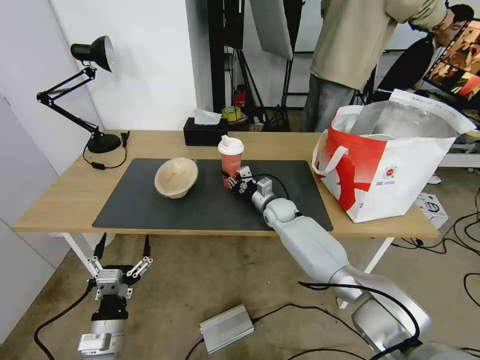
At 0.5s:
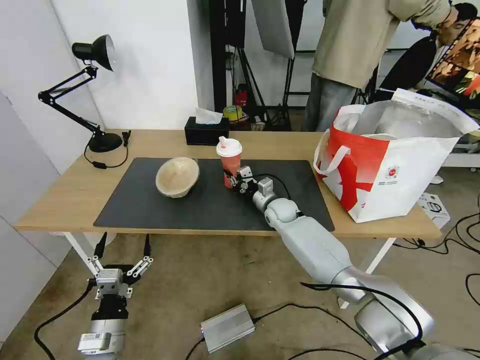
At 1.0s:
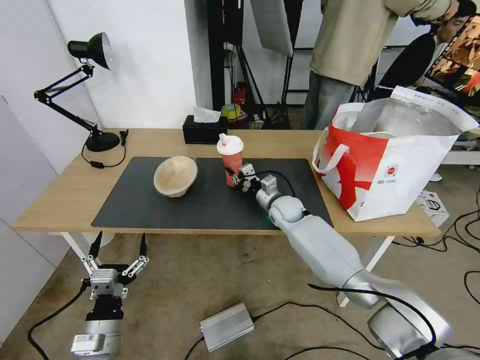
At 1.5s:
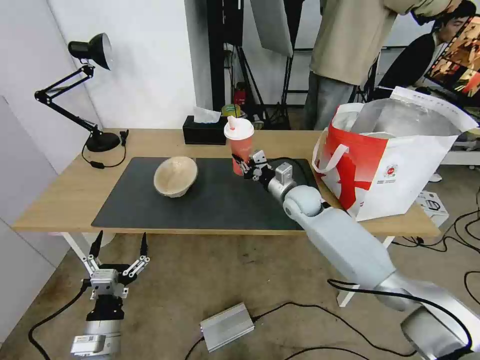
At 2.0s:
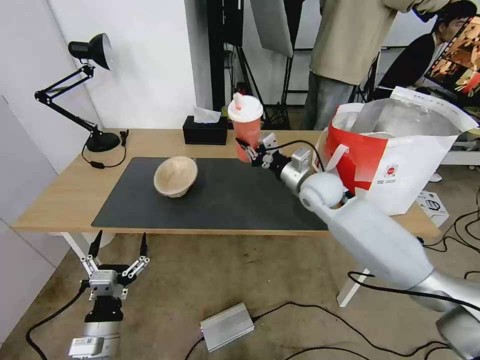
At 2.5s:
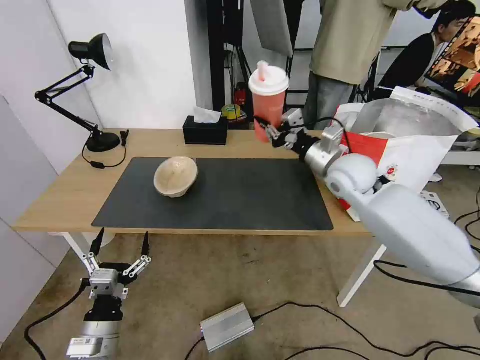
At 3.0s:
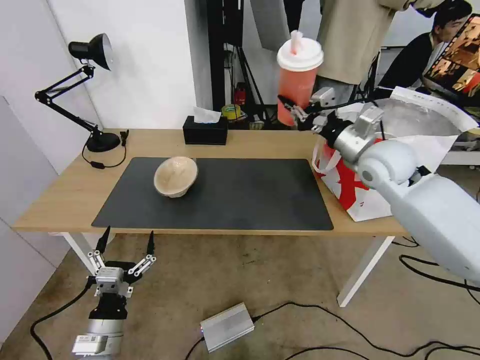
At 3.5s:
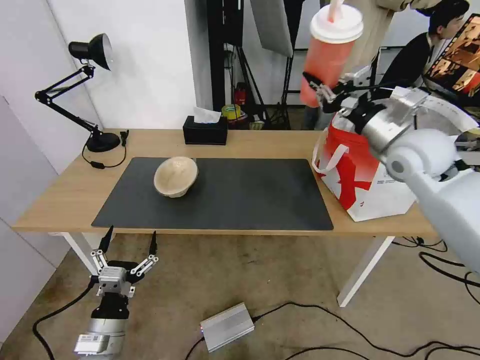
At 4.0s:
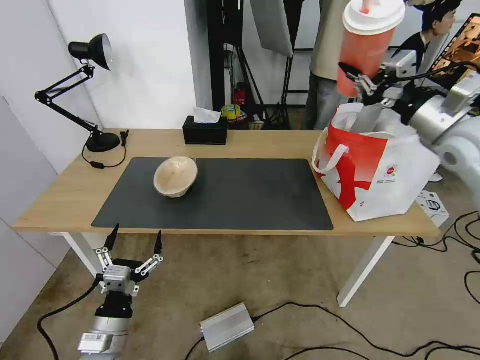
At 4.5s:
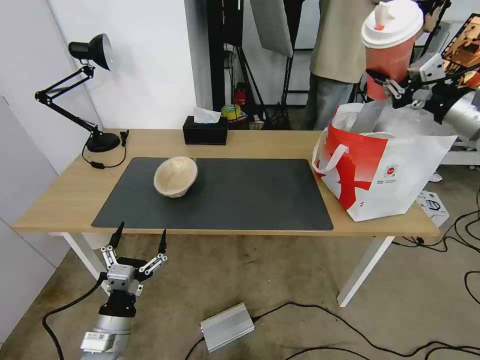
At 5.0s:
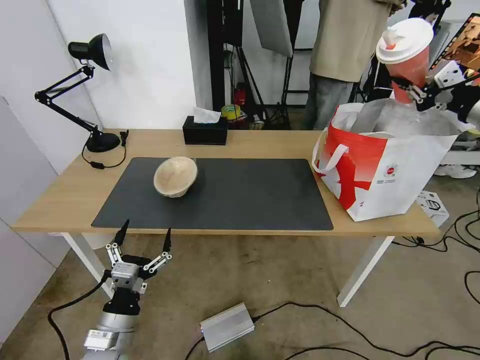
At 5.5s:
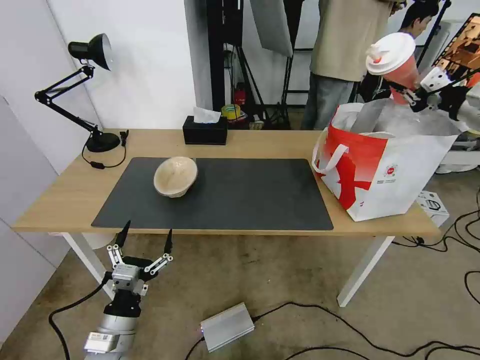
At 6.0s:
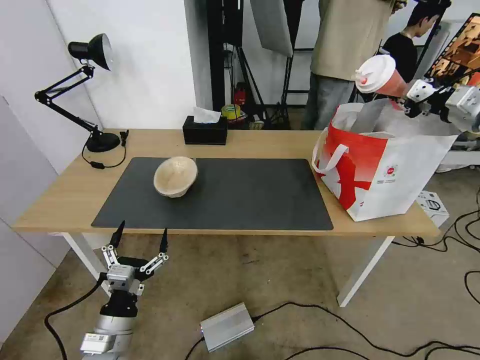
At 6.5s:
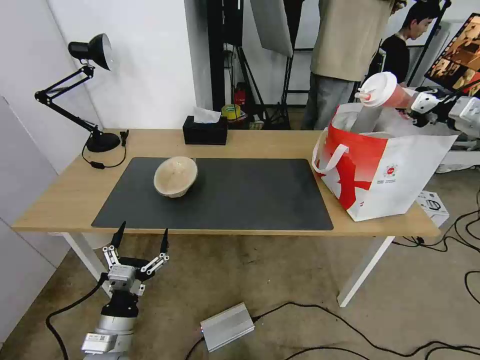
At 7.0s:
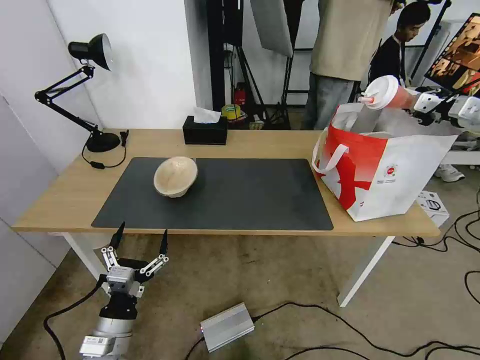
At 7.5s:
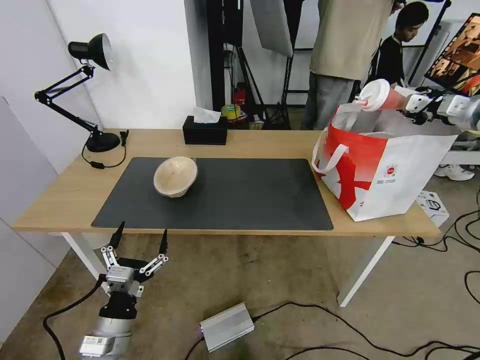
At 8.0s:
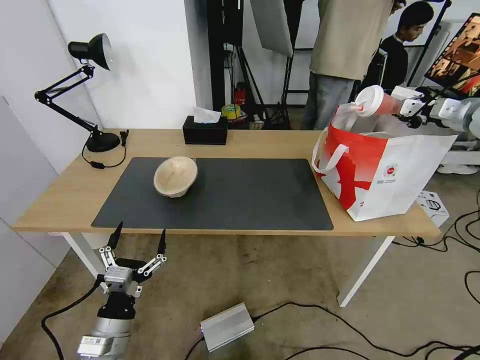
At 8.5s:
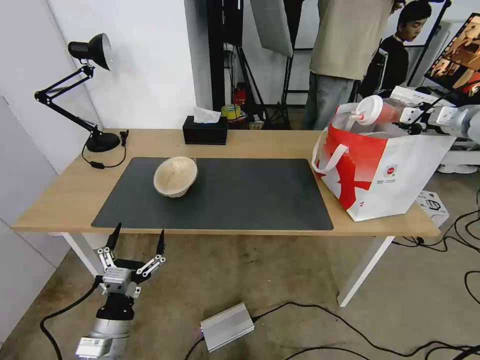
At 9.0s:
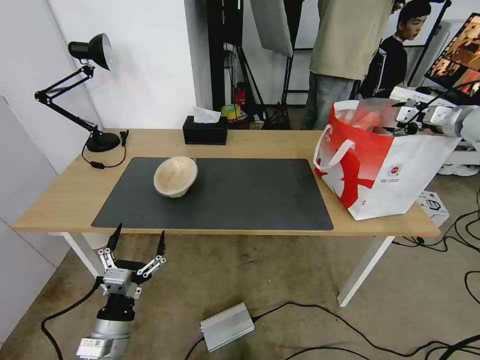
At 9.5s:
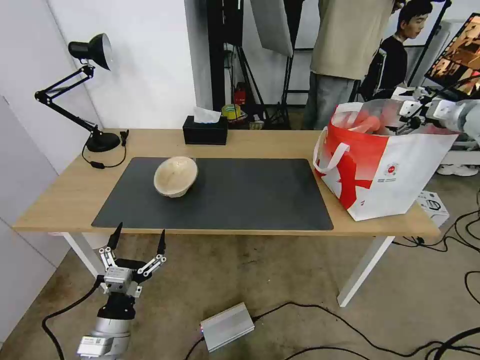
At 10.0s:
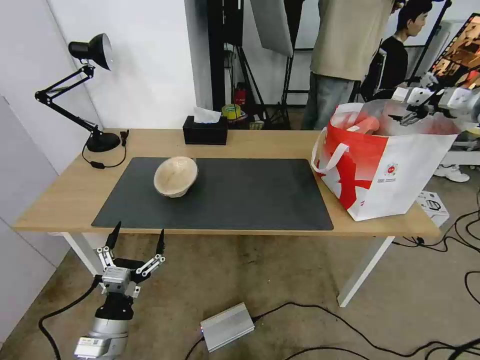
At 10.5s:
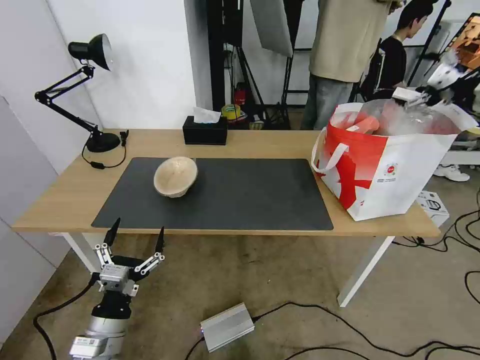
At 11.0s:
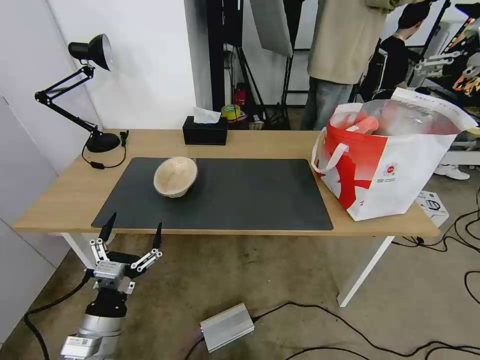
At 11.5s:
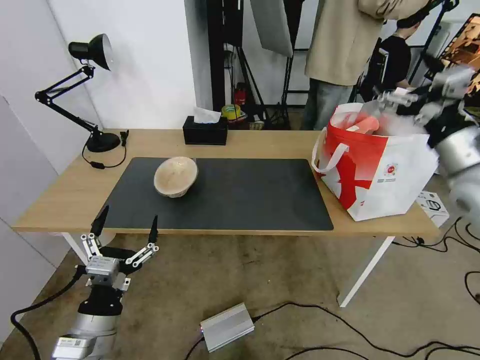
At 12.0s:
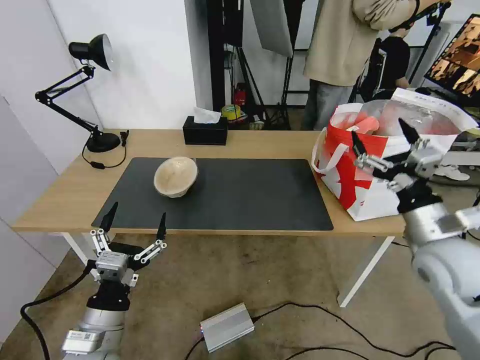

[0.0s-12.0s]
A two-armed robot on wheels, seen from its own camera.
Task of the whole recording: Pick up the trash from the table and place it into the takeout bag.
0.0s to 2.0s: The right gripper moves upward and to the right, about 15 cm.
2.0s to 4.0s: The right gripper heads to the right and upward, covering approximately 25 cm.
4.0s to 6.0s: The right gripper shifts approximately 15 cm to the right and forward.
6.0s to 8.0s: The right gripper shifts about 5 cm forward.
8.0s to 10.0s: The right gripper opens.
10.0s to 12.0s: The right gripper travels backward, to the left and downward by about 35 cm, while the left gripper heads upward, covering some 5 cm.

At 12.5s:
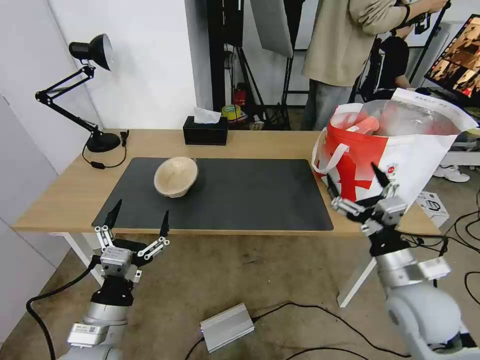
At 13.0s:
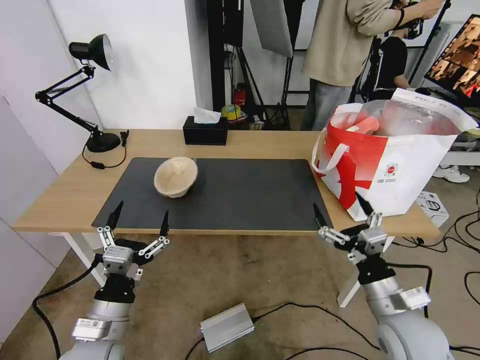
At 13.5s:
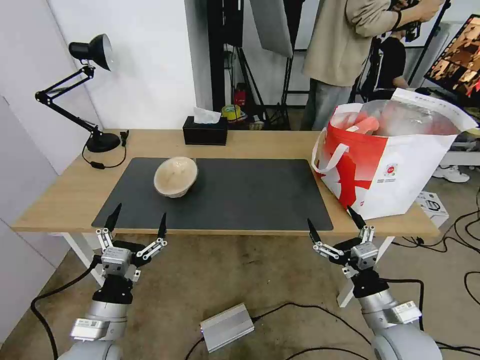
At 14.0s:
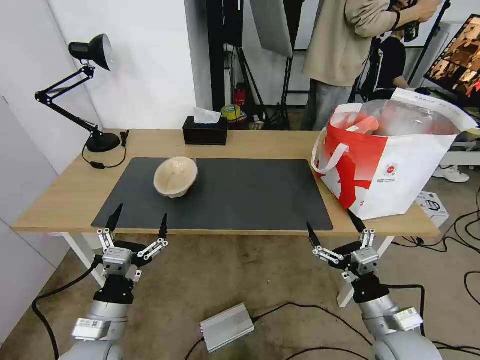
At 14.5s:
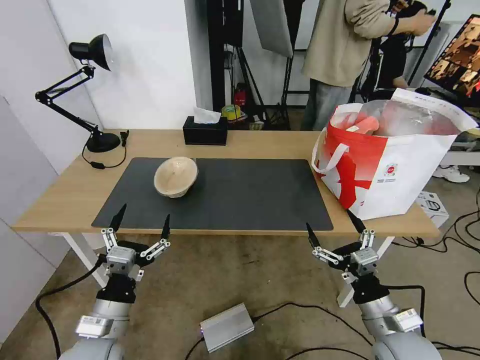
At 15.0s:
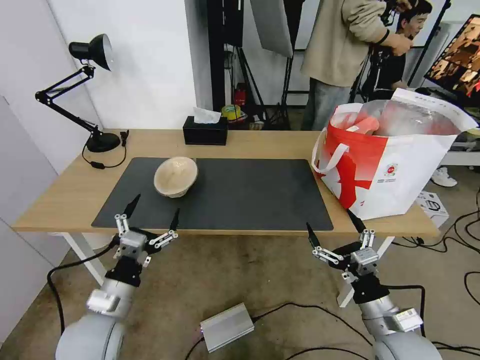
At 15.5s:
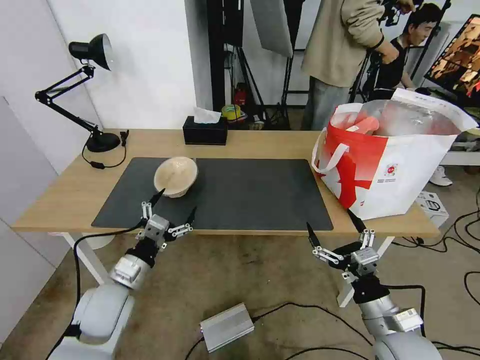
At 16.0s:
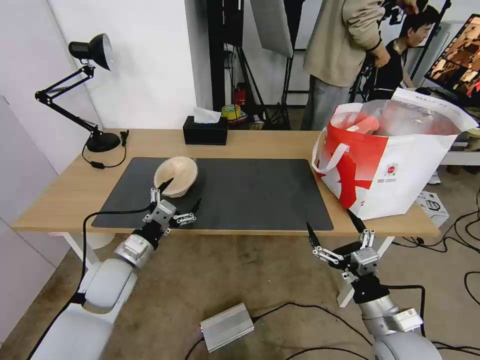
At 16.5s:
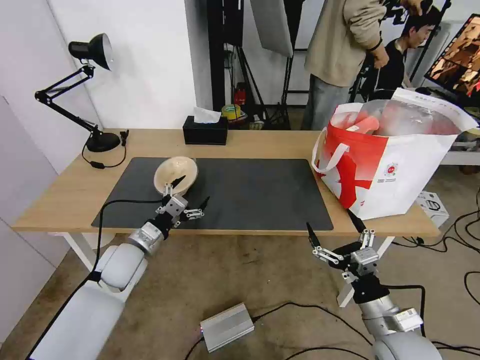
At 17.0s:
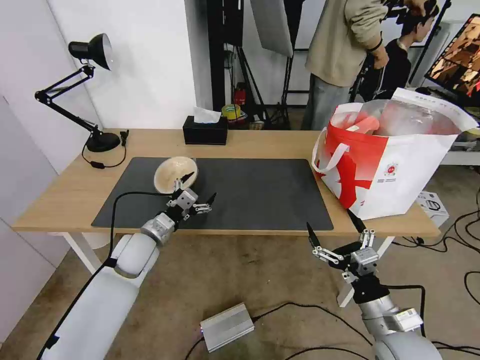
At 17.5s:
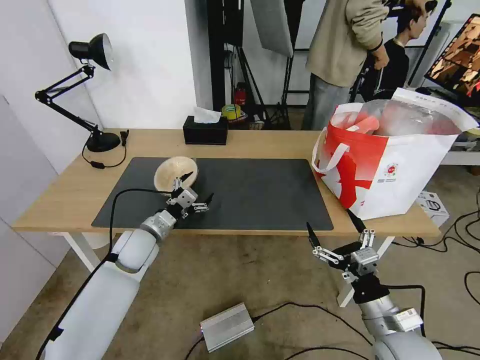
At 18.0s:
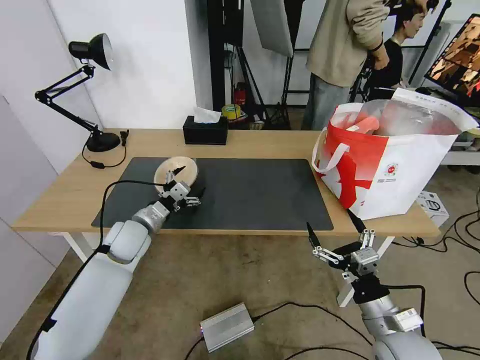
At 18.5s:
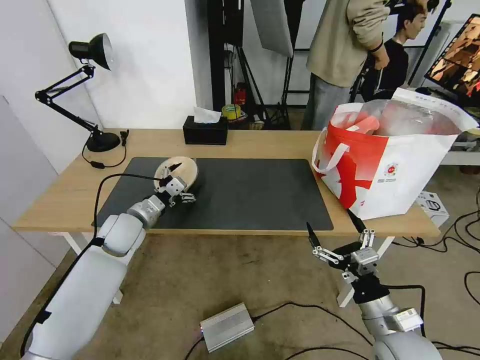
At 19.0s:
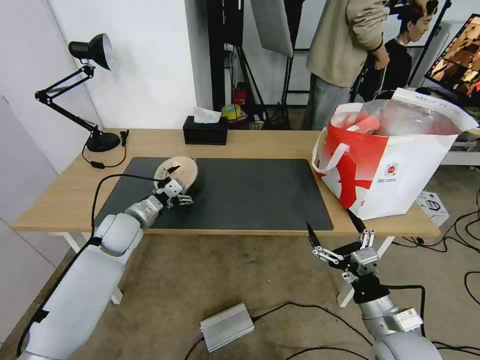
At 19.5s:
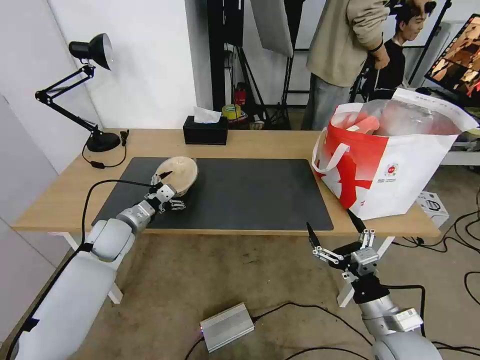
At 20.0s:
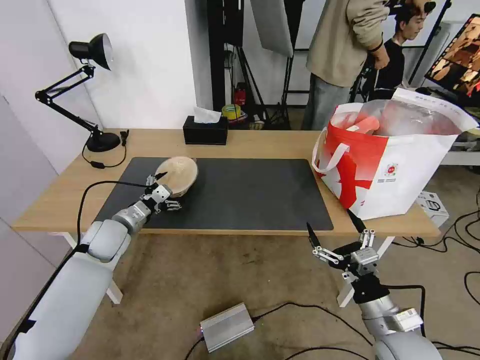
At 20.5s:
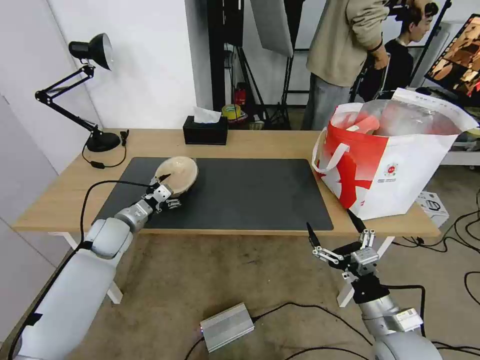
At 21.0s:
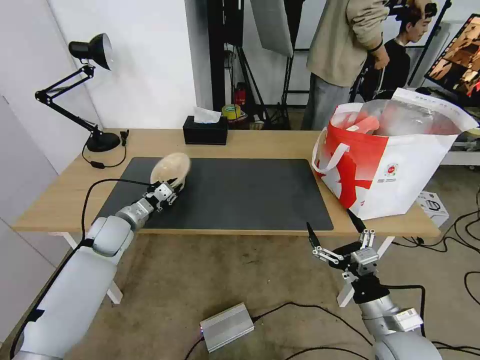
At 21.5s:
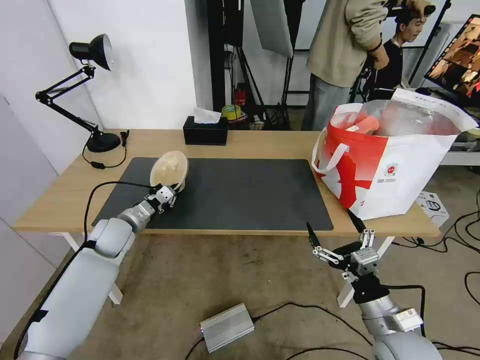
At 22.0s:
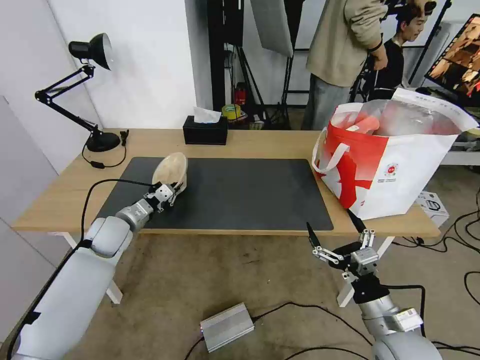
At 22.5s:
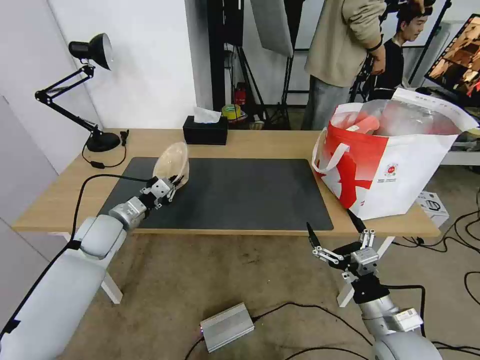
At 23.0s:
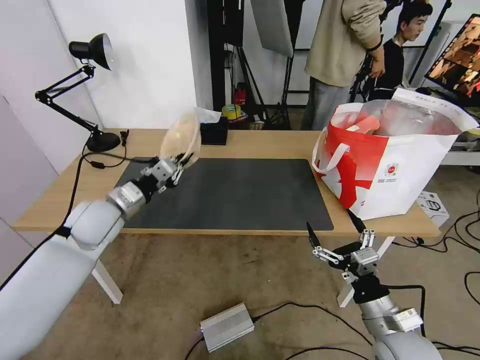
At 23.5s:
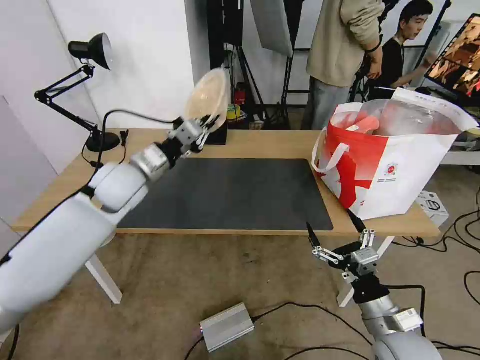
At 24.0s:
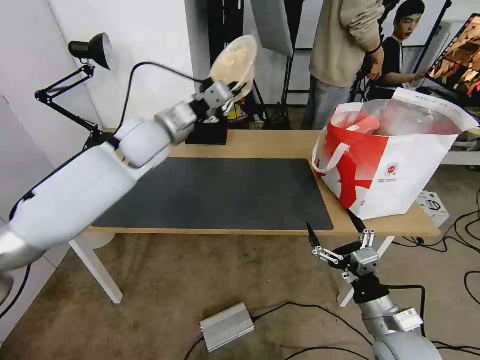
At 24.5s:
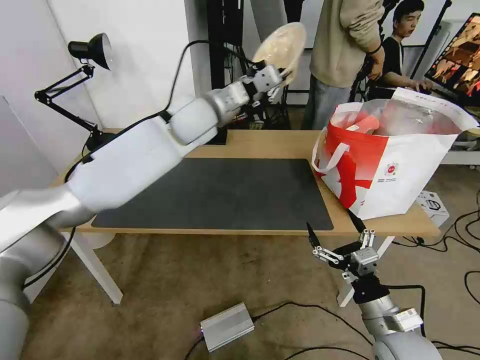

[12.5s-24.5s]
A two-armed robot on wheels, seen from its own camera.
Task of the whole recording: Pick up the trash from the table and place it into the takeout bag.
12.5s to 14.5s: The right gripper travels downward and backward by some 10 cm.
14.5s to 16.5s: The left gripper moves forward, some 20 cm.
16.5s to 18.5s: The left gripper shifts about 5 cm forward.
18.5s to 20.5s: The grippers move only a little.
20.5s to 22.5s: The left gripper closes.
22.5s to 24.5s: The left gripper travels to the right, upward and forward by about 35 cm.

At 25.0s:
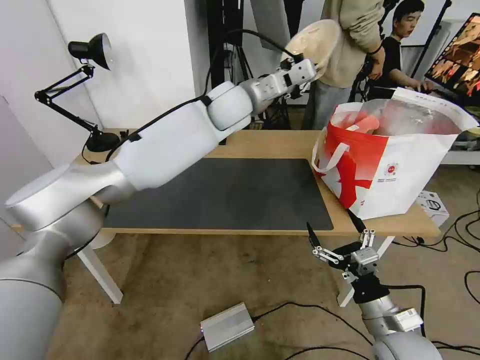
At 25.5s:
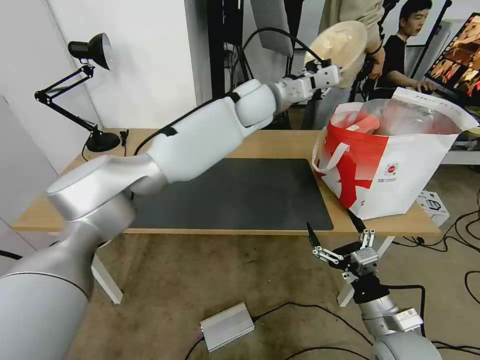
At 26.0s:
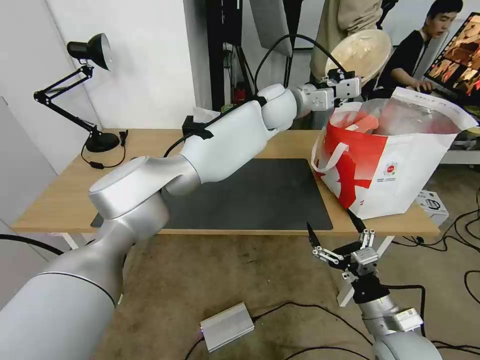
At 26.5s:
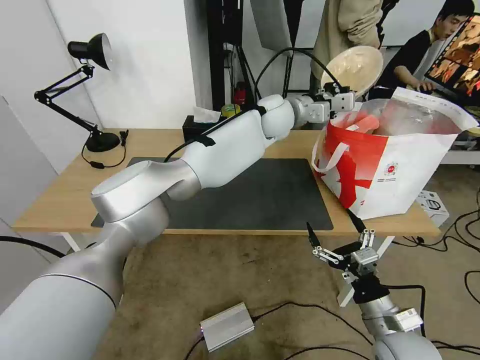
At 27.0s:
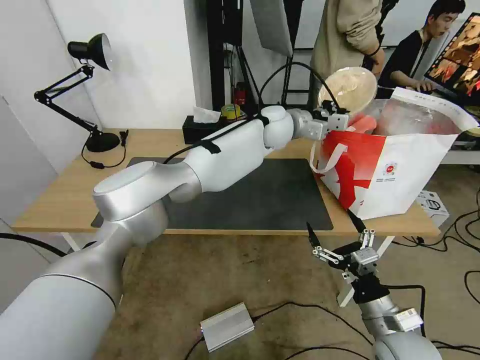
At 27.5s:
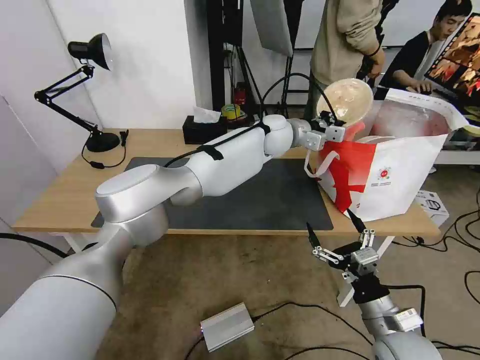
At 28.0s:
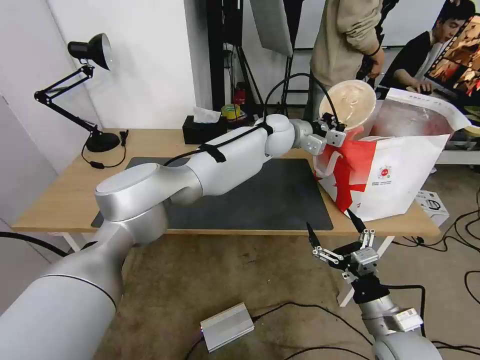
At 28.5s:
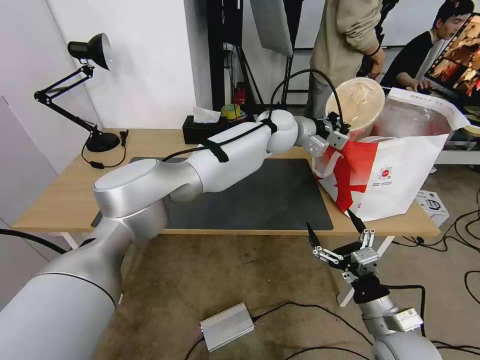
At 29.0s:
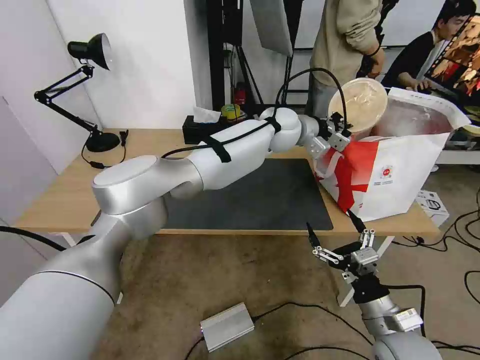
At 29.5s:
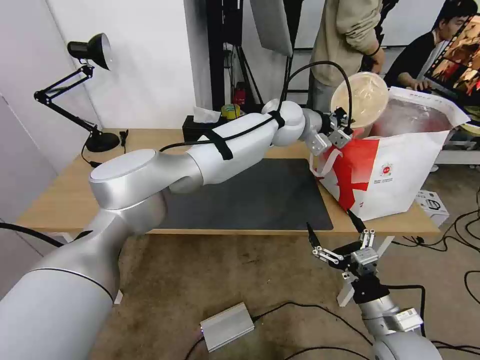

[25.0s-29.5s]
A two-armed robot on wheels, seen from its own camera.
Task of the whole recording: Pick up the trash from the table and place it into the takeout bag.
25.0s to 27.0s: The left gripper shifts about 10 cm to the right and downward.
